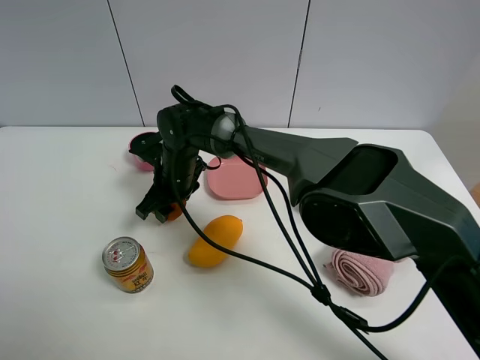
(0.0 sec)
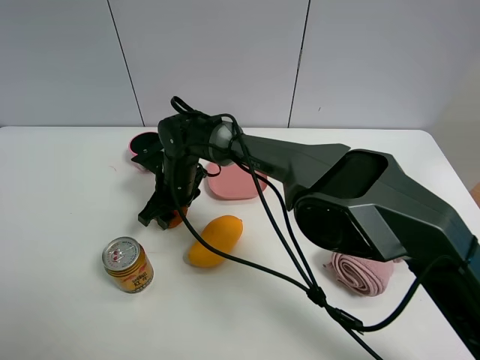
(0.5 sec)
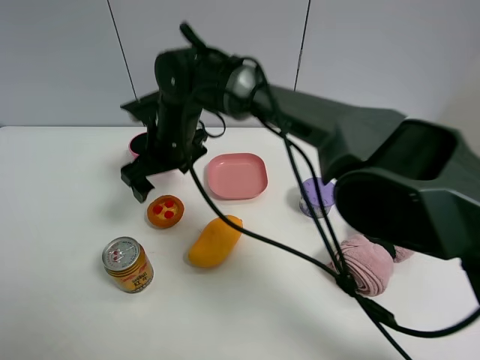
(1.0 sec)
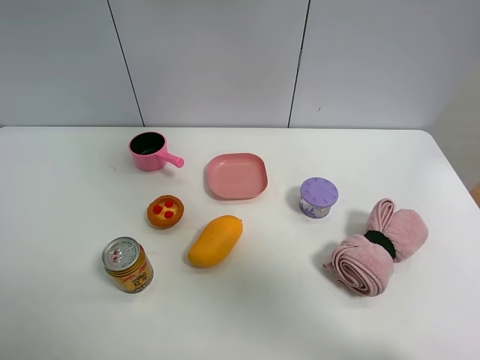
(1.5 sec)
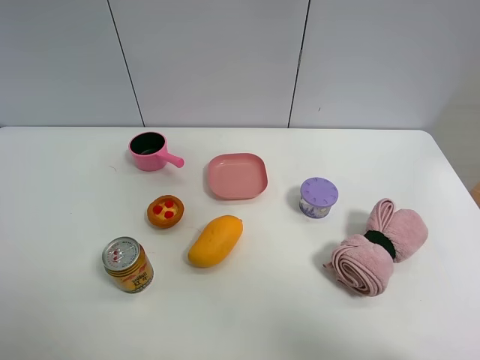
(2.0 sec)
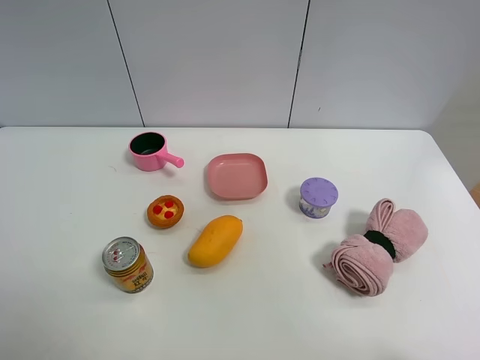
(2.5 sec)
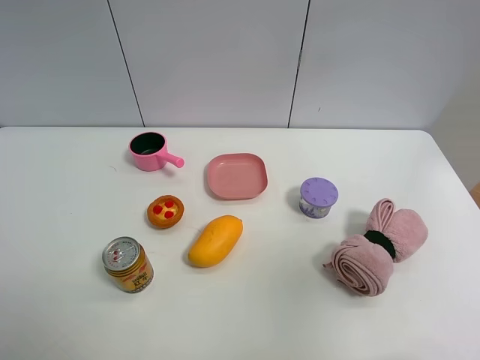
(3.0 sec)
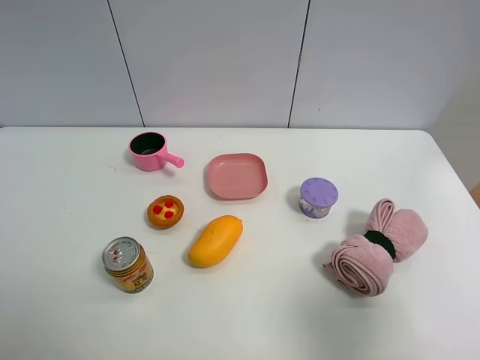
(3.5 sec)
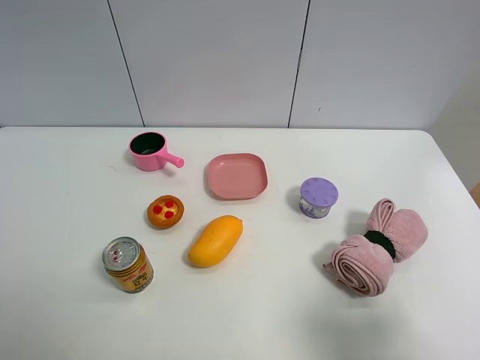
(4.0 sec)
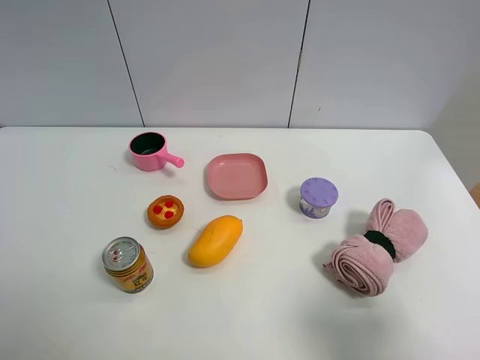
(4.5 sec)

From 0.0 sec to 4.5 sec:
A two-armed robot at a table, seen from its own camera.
Task of the whole recording: the gripper move the object.
From 0.0 sec to 2.0 sec: The right gripper heads upward and to the right, covering approximately 60 cm, and opens up.
From 2.0 sec to 4.5 sec: The right gripper travels downward and backward by roughly 35 cm.

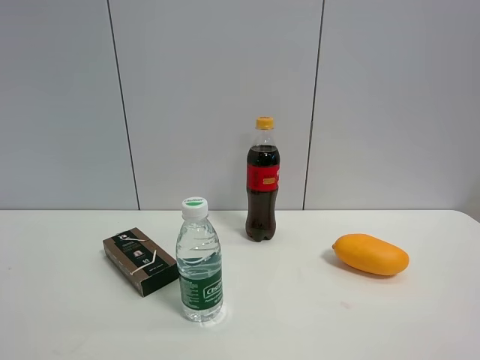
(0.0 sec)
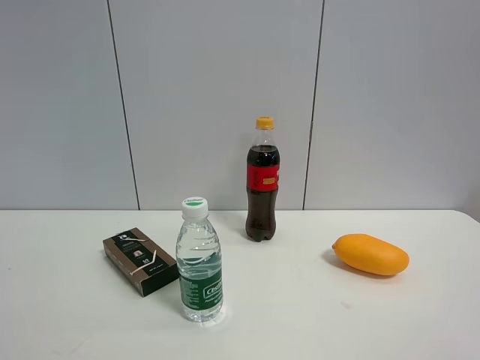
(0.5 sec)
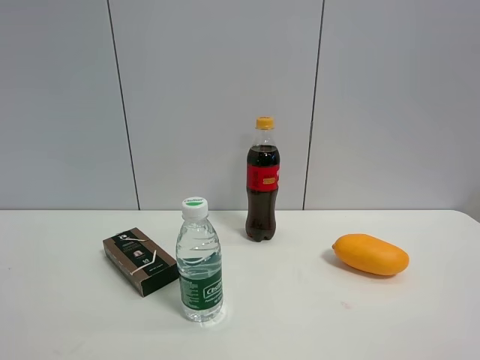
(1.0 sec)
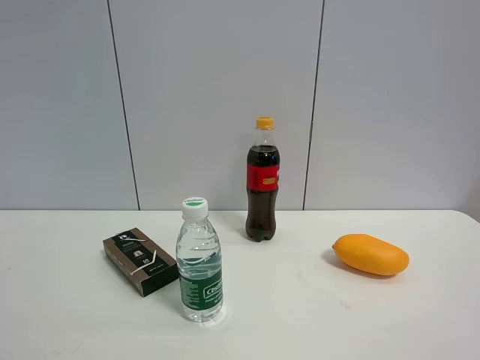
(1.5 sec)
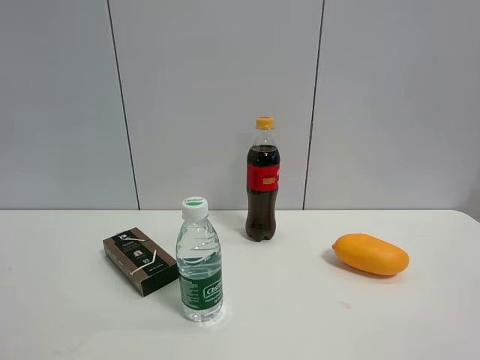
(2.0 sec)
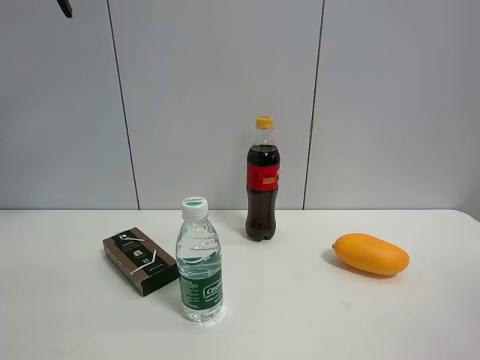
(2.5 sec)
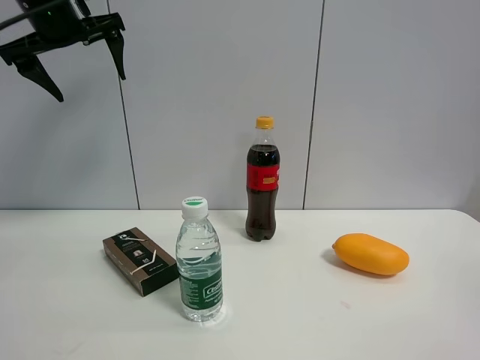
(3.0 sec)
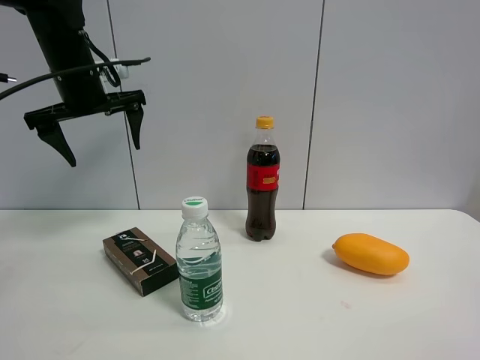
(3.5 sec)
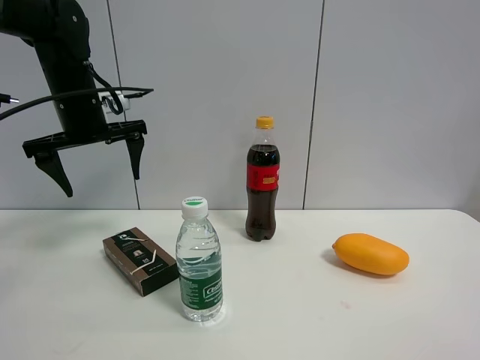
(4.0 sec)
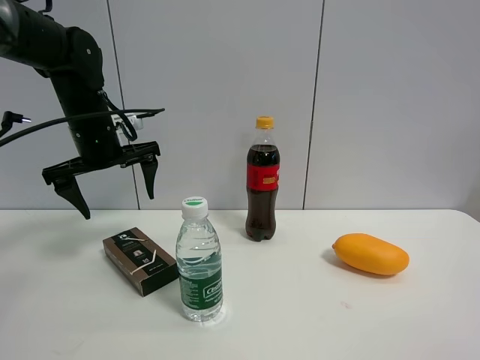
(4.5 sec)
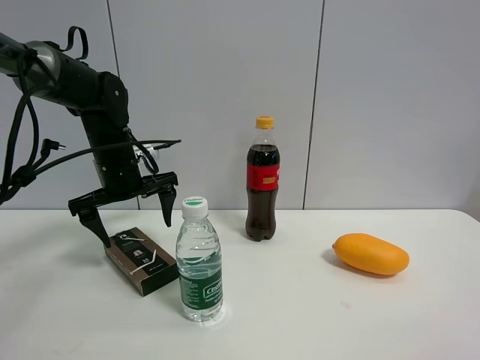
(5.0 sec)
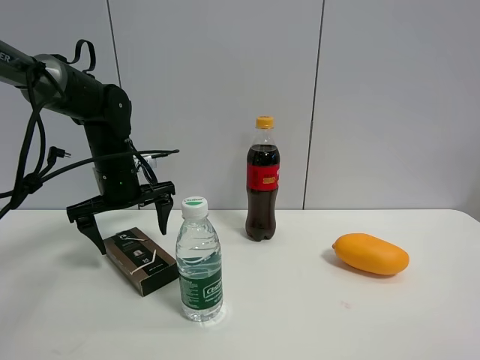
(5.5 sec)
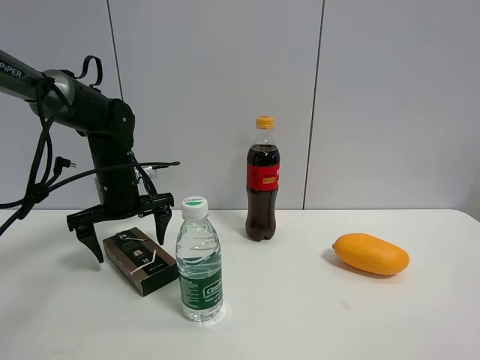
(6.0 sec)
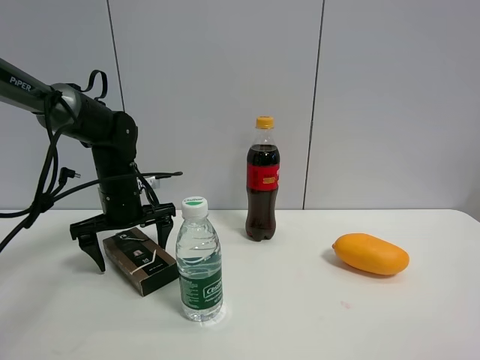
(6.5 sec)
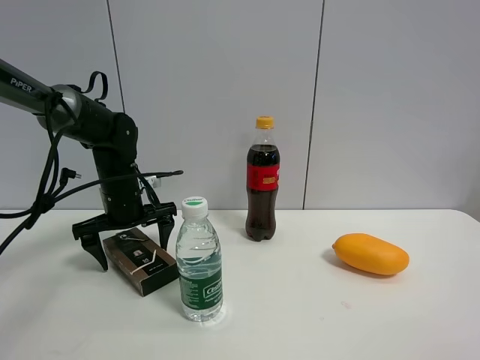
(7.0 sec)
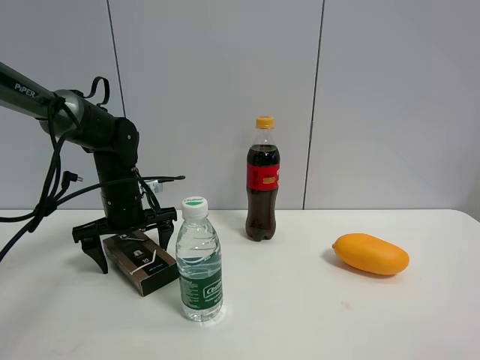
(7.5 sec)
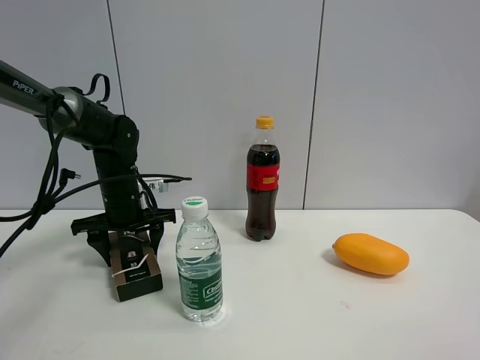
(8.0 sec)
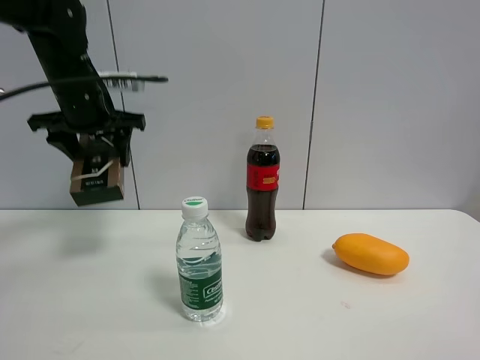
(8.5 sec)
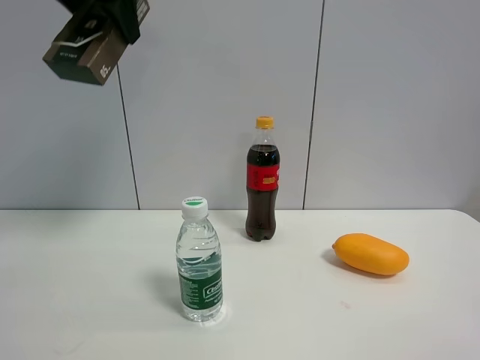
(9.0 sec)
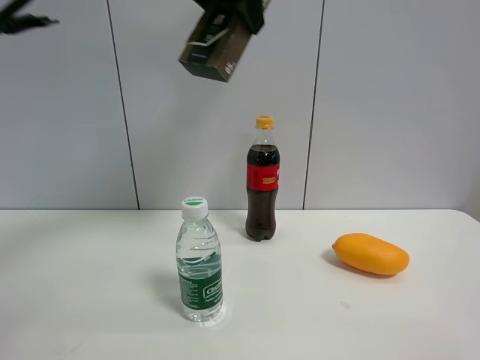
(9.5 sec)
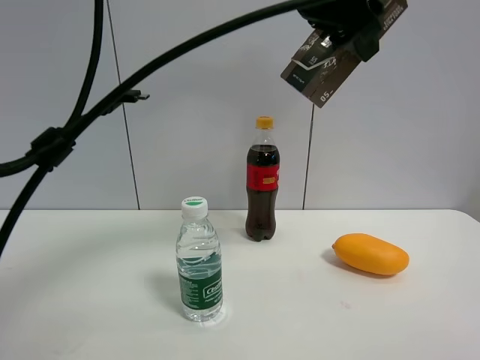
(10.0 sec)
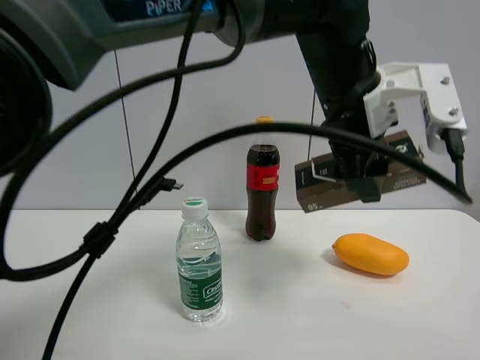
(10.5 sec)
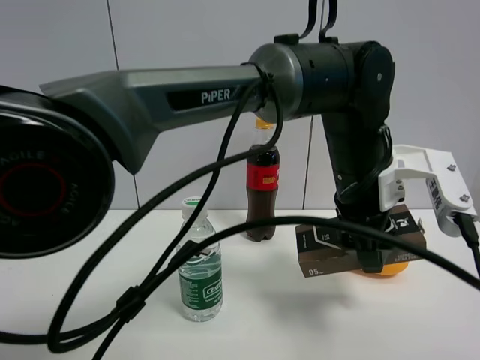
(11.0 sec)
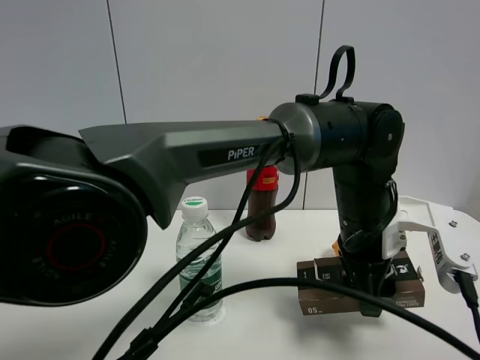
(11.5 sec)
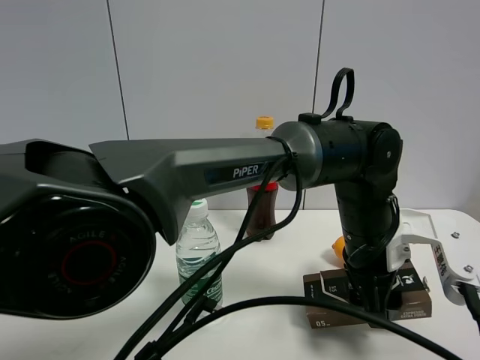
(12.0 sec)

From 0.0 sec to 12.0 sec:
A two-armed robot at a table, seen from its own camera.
Task of the whole recording: the gripper move the object.
Step, from 0.0 sec to 7.5 sec: Grasp the brown box with the left gripper.
From 2.0 sec to 4.0 sec: The left gripper goes about 35 cm forward and downward.
From 4.0 sec to 6.0 sec: The left gripper is displaced downward by roughly 10 cm.
From 6.0 sec to 8.0 sec: The left gripper closes up.
From 8.0 sec to 10.0 sec: The left gripper heads upward and to the right, covering roughly 40 cm.
From 10.0 sec to 12.0 sec: The left gripper shifts about 25 cm downward.

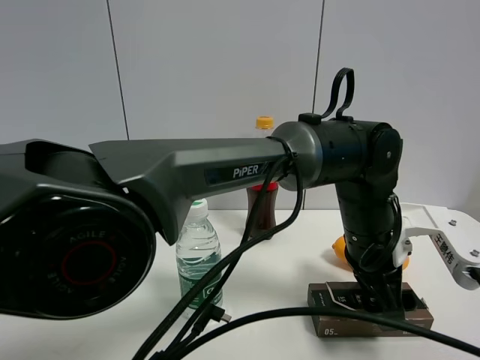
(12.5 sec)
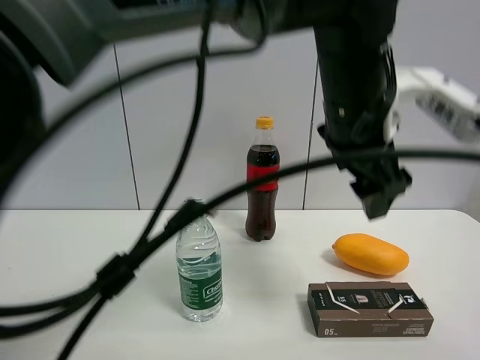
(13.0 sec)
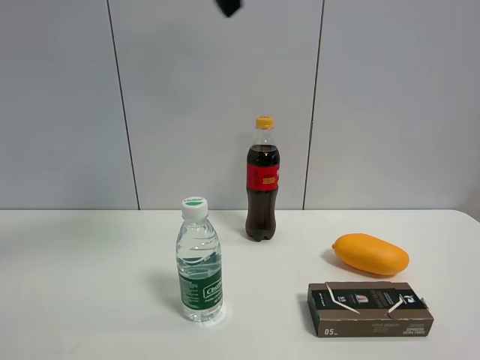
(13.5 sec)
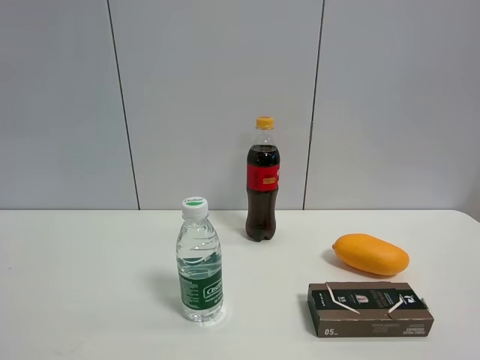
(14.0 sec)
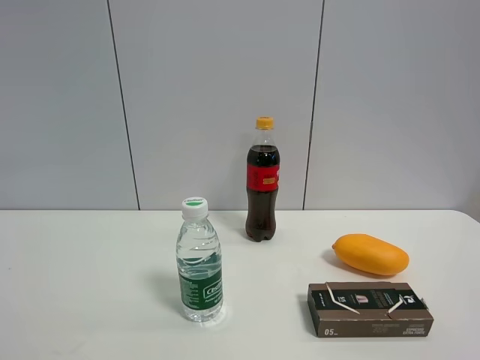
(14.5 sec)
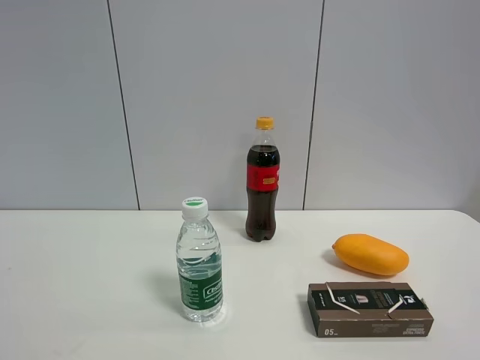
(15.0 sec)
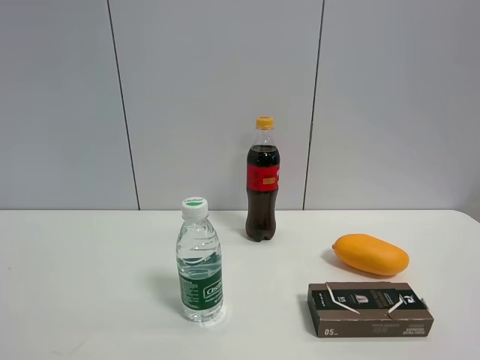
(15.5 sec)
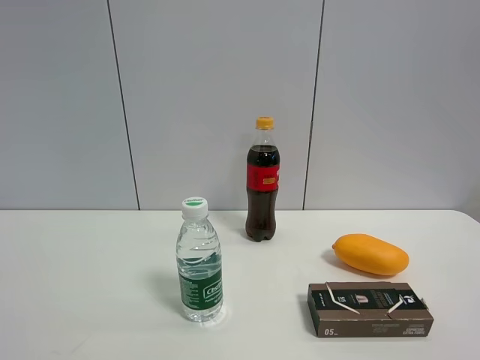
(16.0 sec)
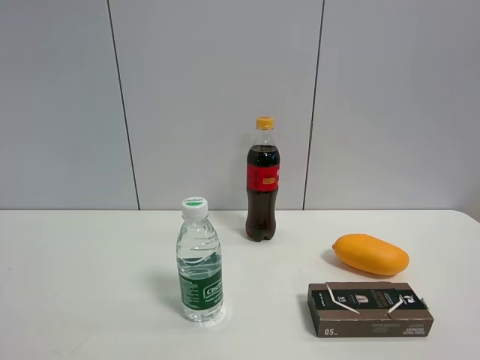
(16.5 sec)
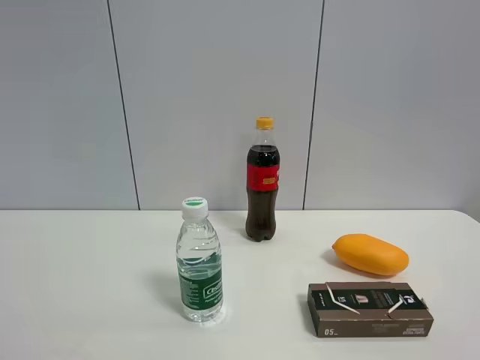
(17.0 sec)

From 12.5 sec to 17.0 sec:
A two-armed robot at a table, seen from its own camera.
Task of the whole recording: the gripper move the object.
From 12.5 sec to 14.5 sec: The left gripper is displaced to the left, backward and upward by approximately 60 cm.

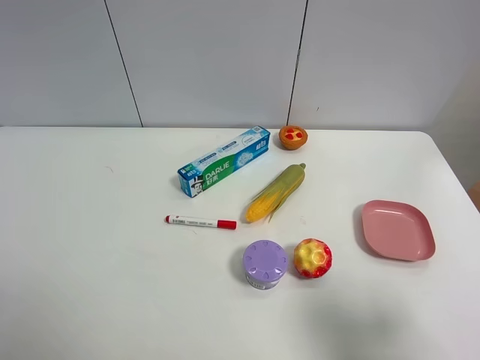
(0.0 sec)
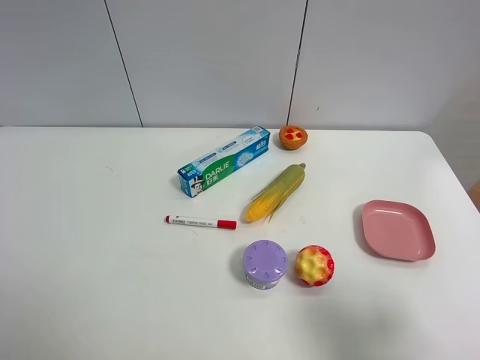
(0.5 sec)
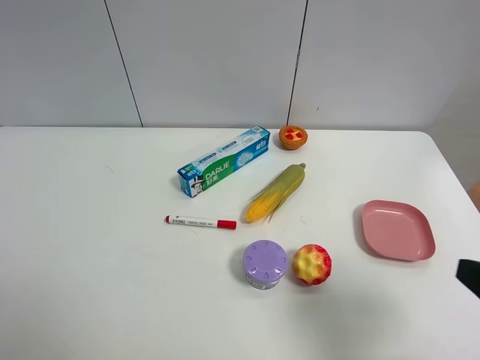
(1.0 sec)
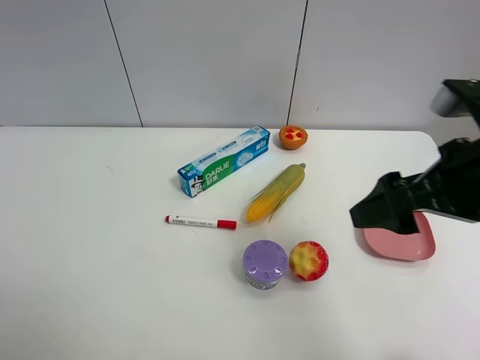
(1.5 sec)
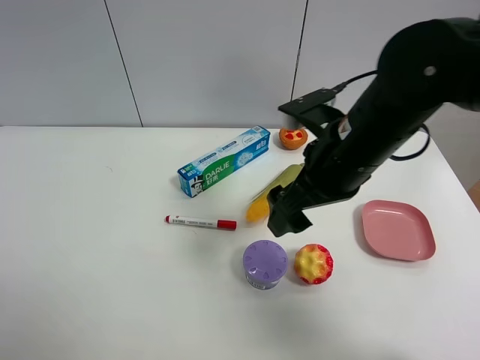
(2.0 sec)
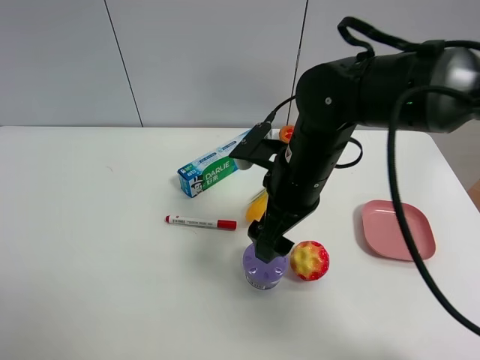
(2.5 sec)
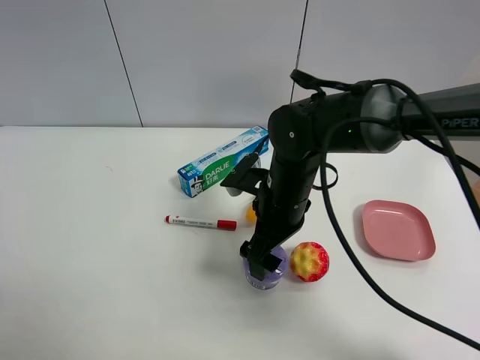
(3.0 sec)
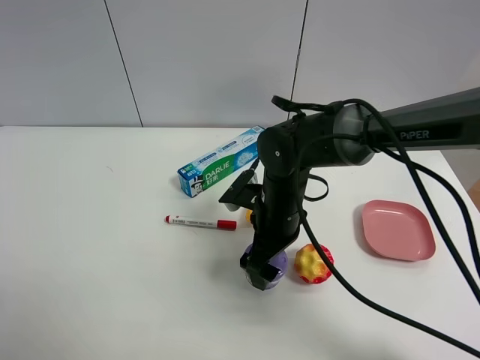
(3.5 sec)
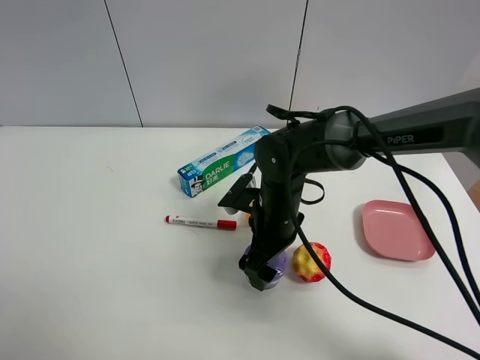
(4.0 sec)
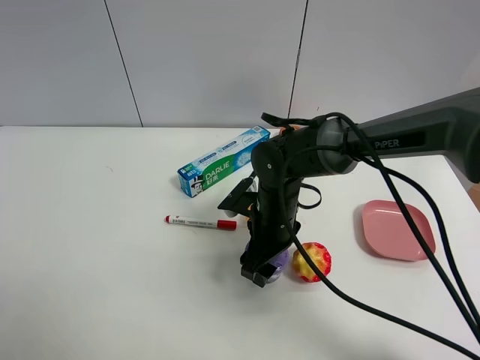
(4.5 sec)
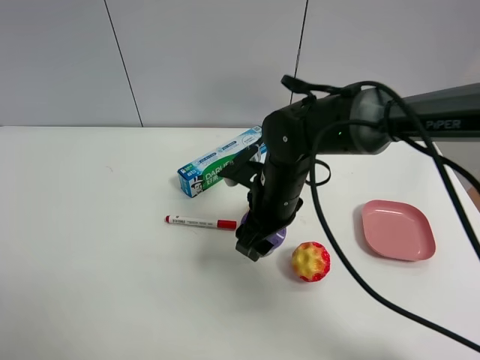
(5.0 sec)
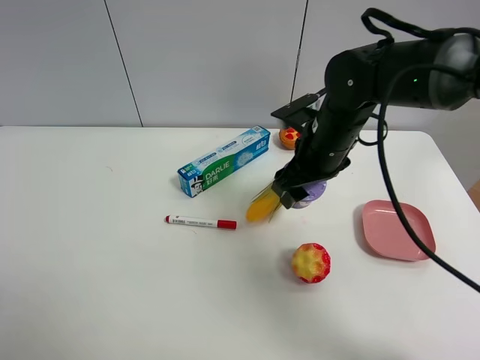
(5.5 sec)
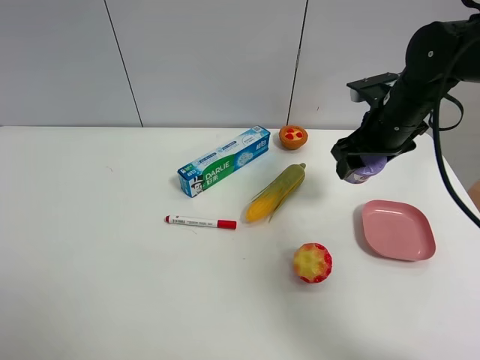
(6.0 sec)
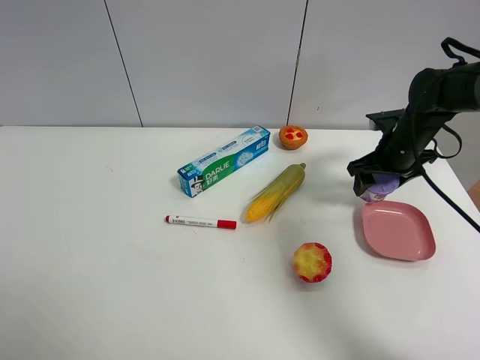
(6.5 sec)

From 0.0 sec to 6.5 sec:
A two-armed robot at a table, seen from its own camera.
Task of the whole recording: the gripper move the object.
Step, from 0.0 sec to 4.0 sec: Grasp the Incense box with the right gripper.
From 0.0 sec to 2.0 sec: The right gripper shifts approximately 30 cm forward and to the left.
From 2.0 sec to 4.5 sec: The right gripper shifts roughly 15 cm downward, and closes up.
From 4.5 sec to 6.5 sec: The right gripper travels to the right and forward by approximately 25 cm.
